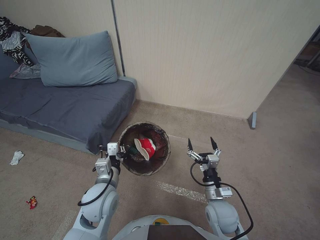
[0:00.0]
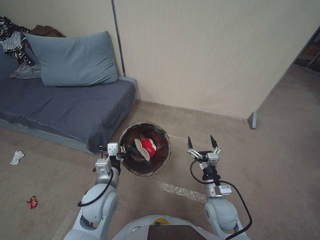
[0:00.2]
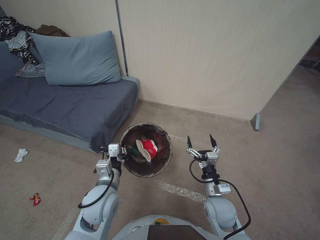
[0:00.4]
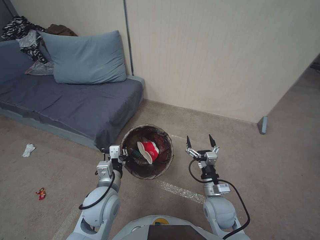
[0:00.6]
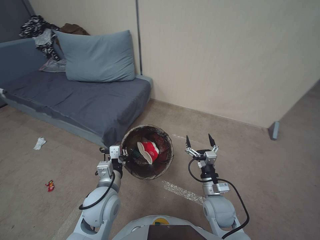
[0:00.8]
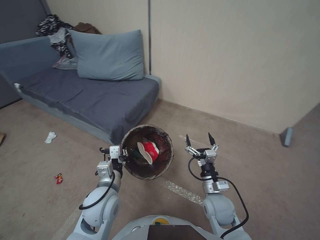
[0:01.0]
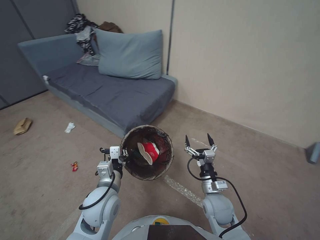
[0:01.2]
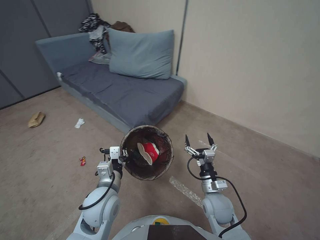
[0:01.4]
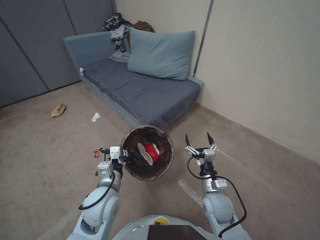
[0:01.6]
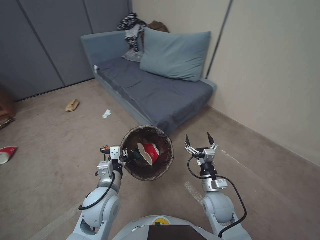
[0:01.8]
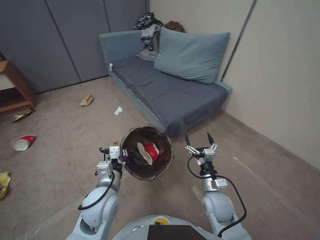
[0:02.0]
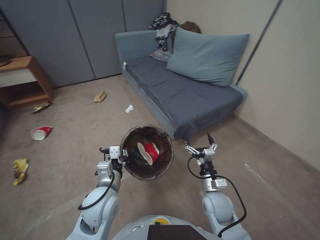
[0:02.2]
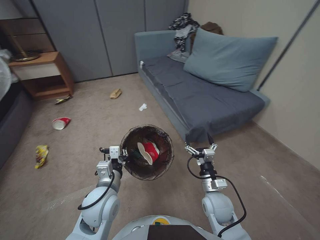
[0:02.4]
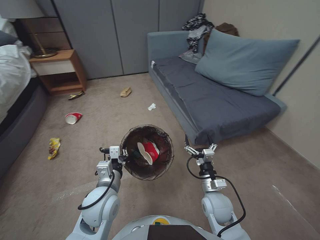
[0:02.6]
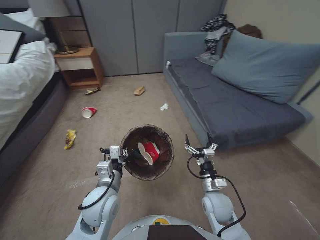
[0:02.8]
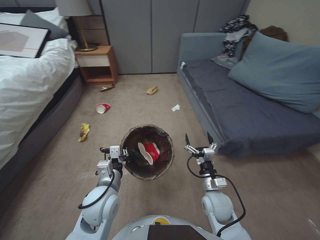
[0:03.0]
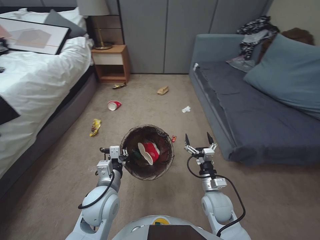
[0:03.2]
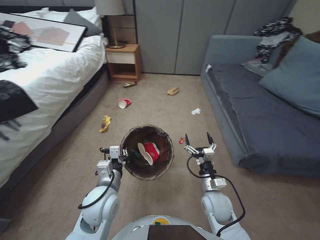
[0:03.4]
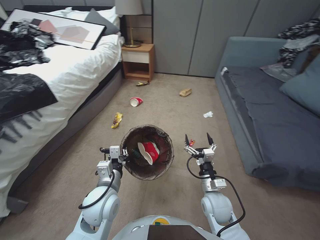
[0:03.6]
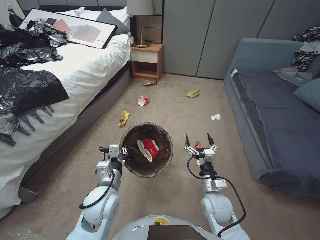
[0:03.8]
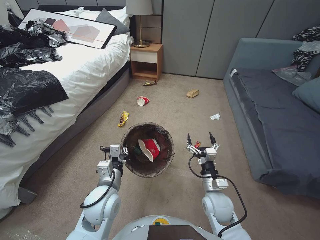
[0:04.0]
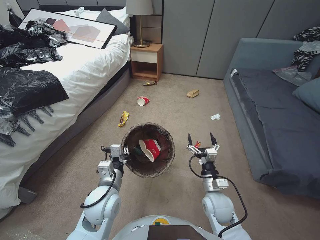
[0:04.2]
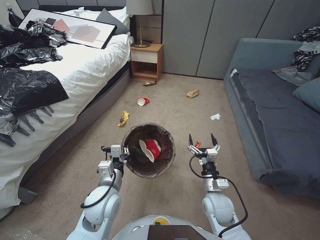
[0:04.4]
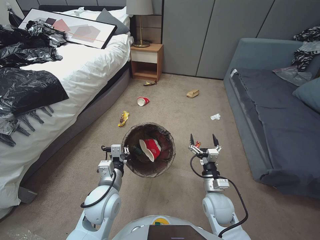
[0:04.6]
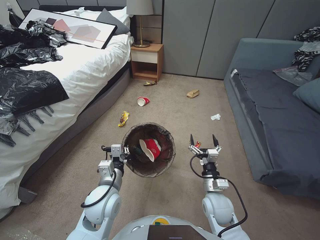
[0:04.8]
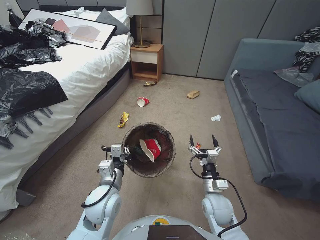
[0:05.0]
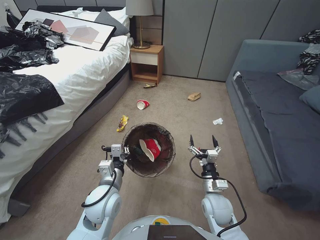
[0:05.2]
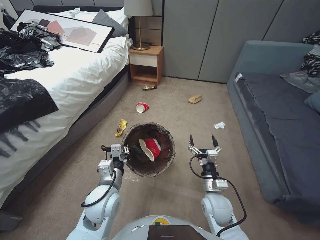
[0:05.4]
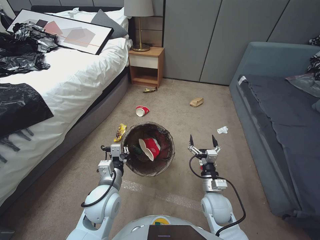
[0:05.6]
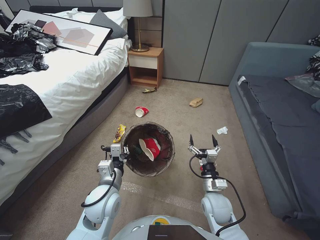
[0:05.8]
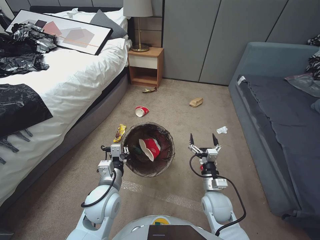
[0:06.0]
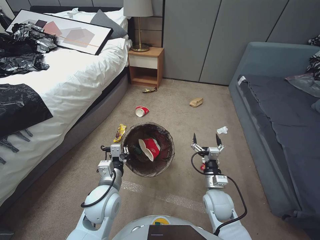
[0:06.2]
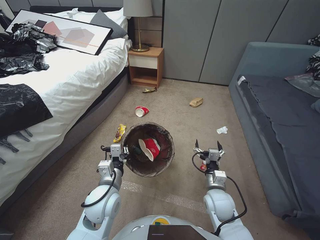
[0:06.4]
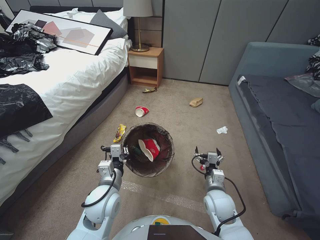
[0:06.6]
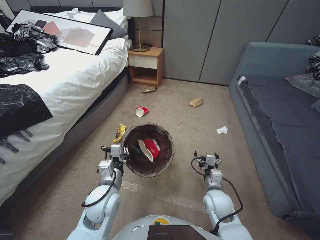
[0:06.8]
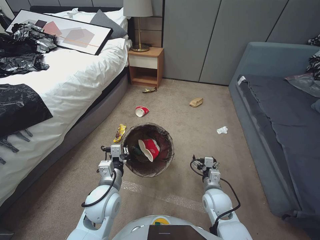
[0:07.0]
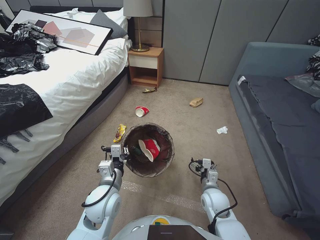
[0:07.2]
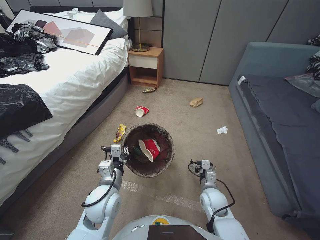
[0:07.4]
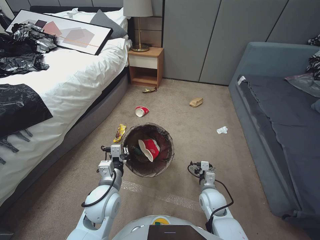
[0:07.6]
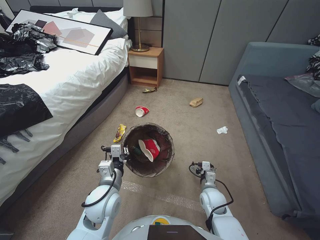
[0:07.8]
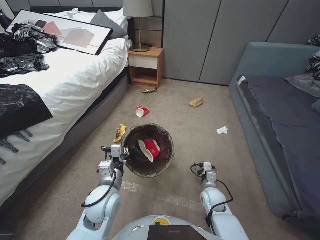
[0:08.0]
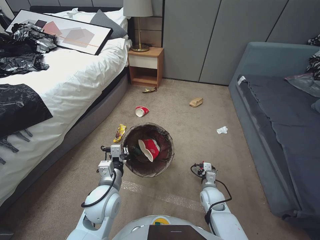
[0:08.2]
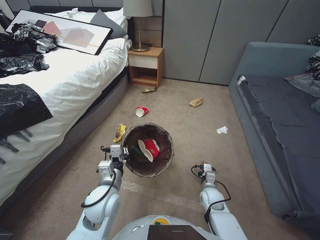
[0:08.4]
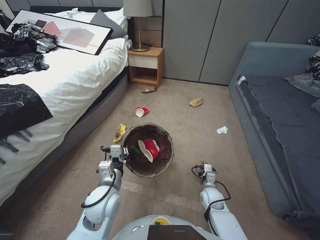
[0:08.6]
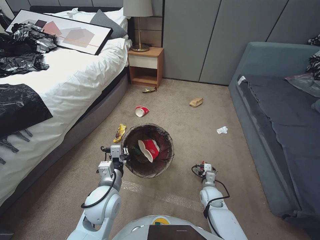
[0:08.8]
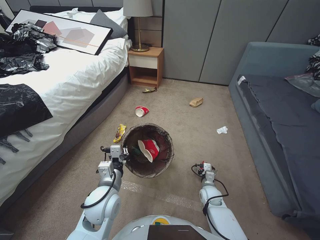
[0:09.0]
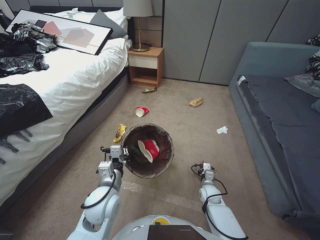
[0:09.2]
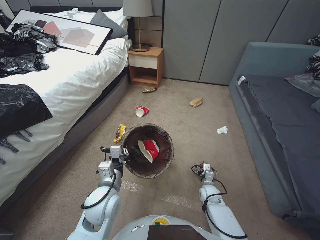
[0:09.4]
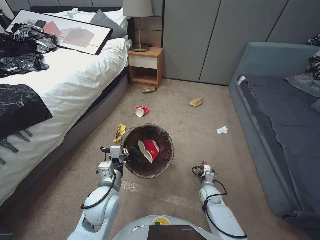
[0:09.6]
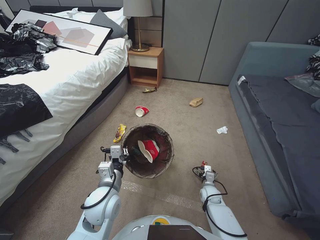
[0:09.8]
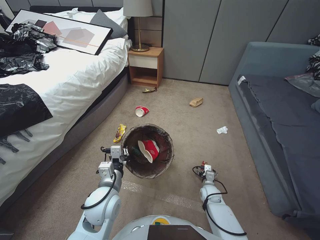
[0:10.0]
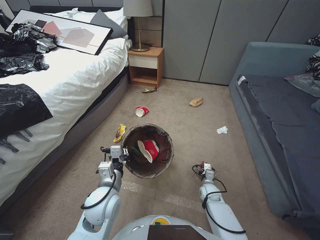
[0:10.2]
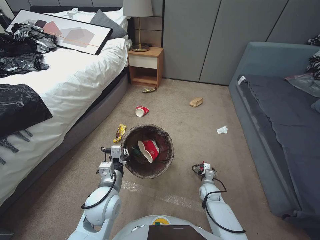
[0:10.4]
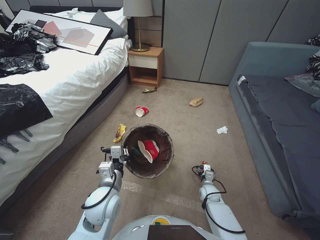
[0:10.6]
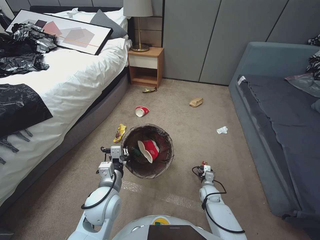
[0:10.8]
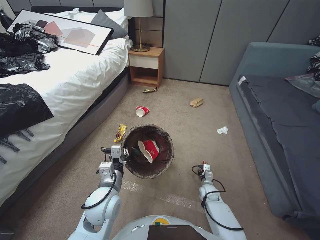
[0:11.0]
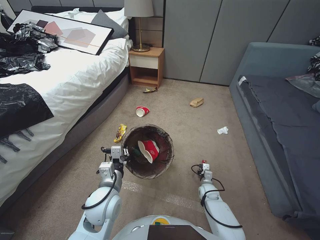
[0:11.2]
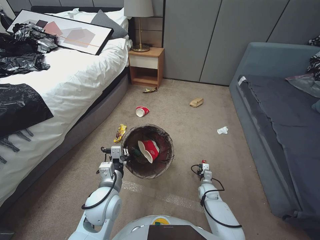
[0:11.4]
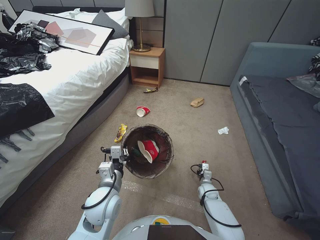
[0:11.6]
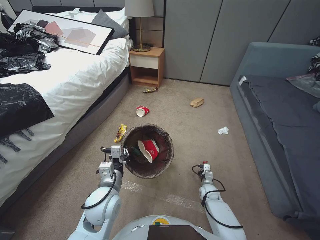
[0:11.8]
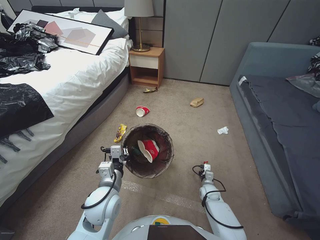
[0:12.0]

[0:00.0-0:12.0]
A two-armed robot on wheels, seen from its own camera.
Task of the whole recording: Pick up the trash bin, then pick up the garbage from the floor and place it into the trash bin.
0:06.0 to 0:07.6: The right gripper shifts by some 5 cm.
0:07.6 to 0:09.0: The right gripper is displaced downward by roughly 5 cm.
0:09.0 to 0:10.4: The right gripper goes roughly 5 cm downward.
0:10.4 to 0:12.0: The right gripper closes.

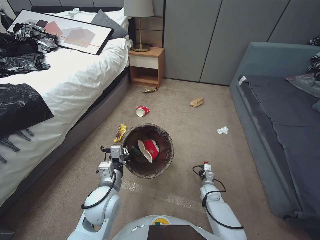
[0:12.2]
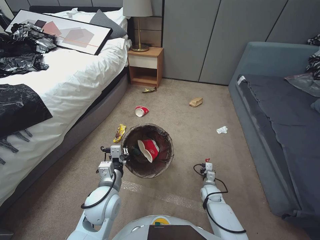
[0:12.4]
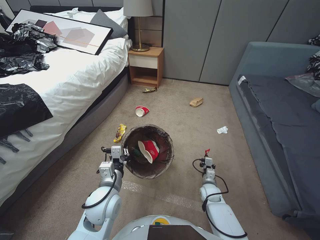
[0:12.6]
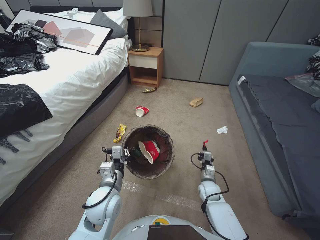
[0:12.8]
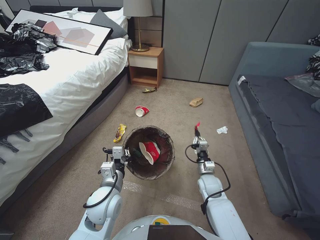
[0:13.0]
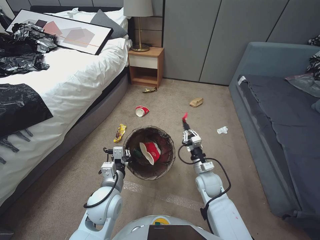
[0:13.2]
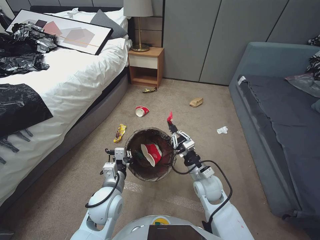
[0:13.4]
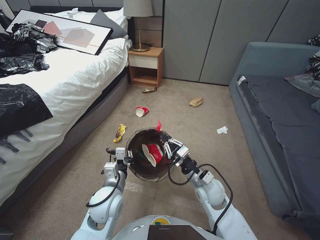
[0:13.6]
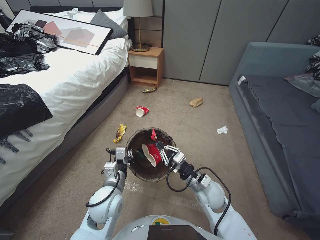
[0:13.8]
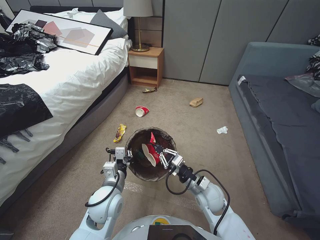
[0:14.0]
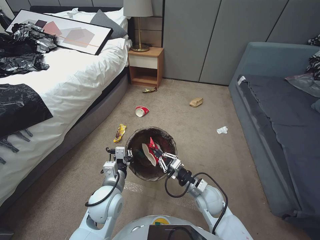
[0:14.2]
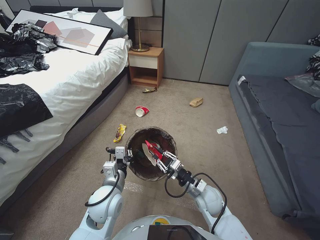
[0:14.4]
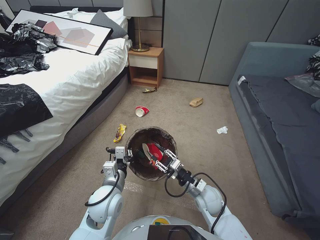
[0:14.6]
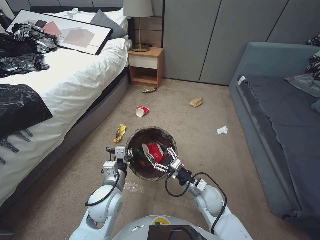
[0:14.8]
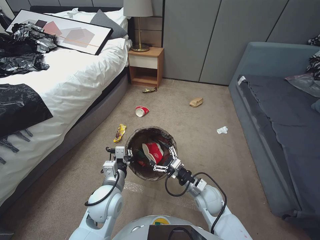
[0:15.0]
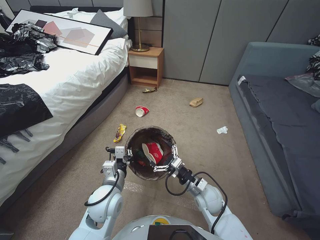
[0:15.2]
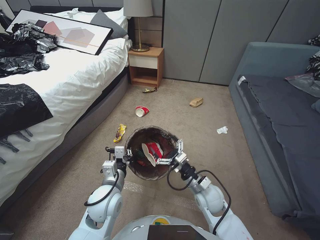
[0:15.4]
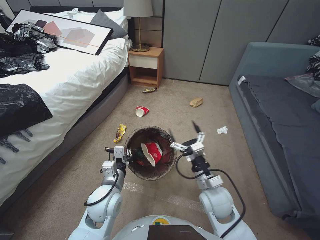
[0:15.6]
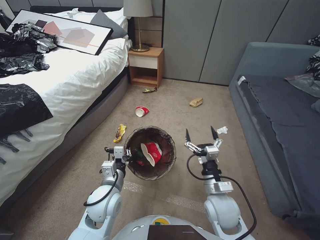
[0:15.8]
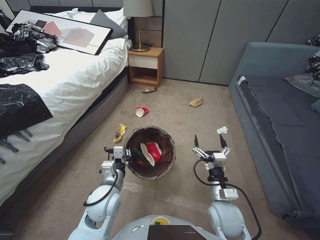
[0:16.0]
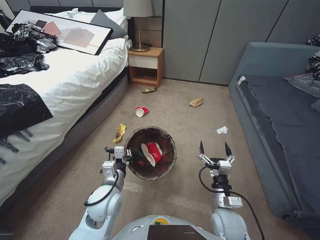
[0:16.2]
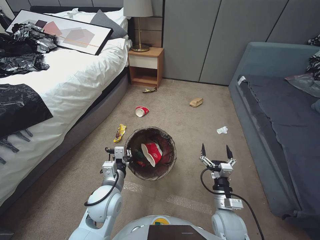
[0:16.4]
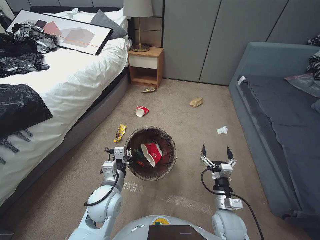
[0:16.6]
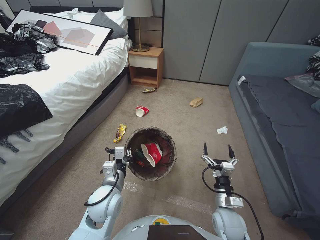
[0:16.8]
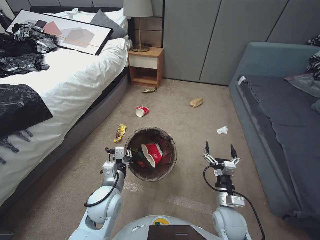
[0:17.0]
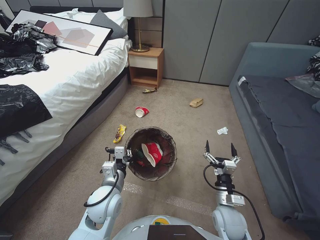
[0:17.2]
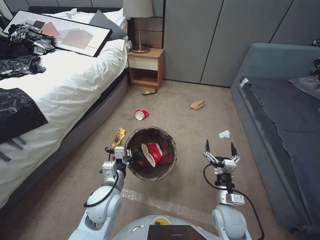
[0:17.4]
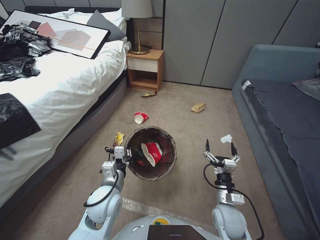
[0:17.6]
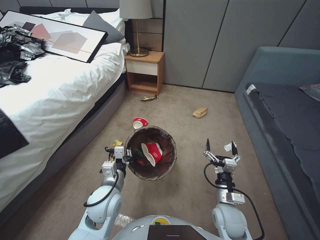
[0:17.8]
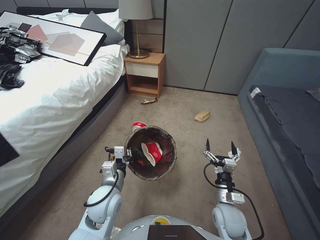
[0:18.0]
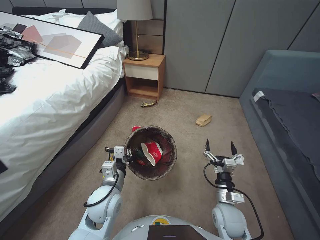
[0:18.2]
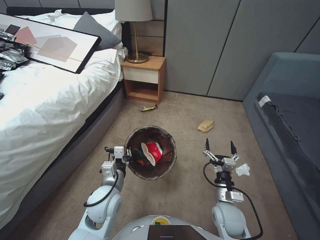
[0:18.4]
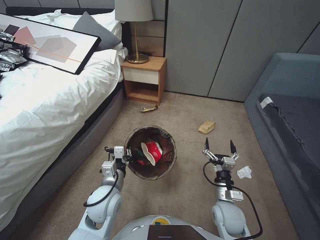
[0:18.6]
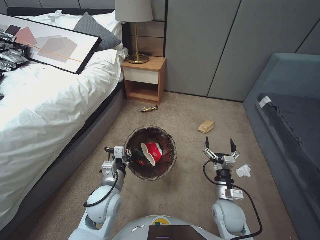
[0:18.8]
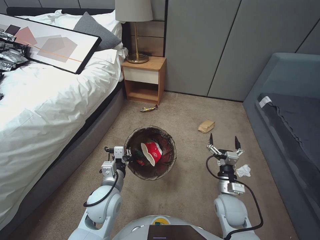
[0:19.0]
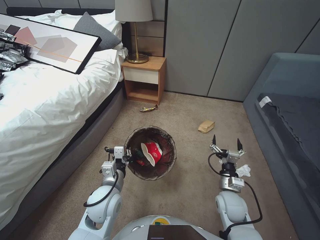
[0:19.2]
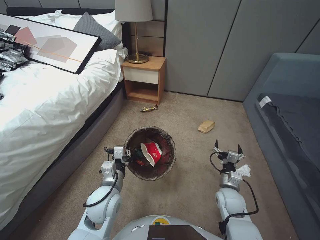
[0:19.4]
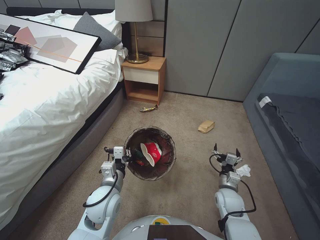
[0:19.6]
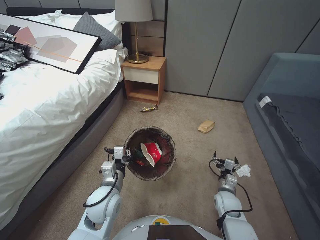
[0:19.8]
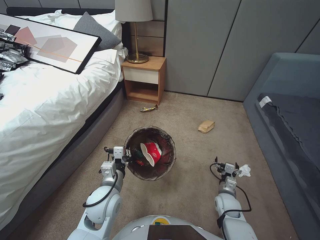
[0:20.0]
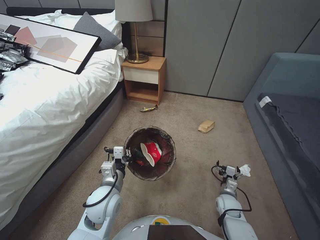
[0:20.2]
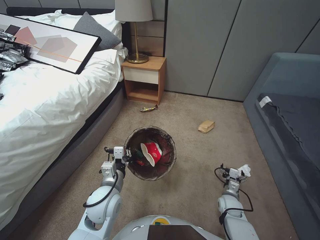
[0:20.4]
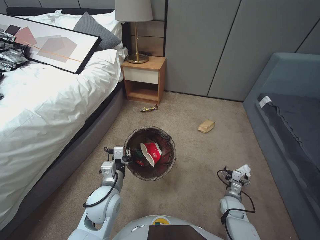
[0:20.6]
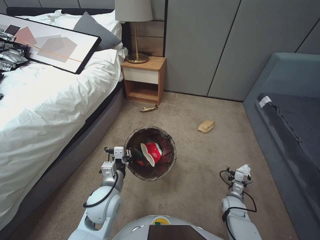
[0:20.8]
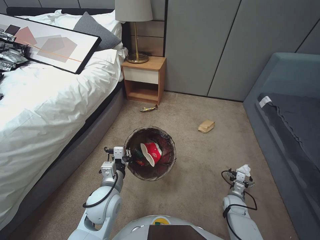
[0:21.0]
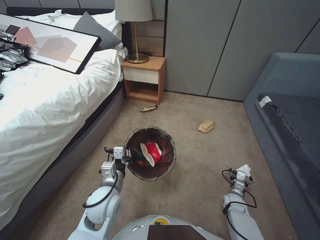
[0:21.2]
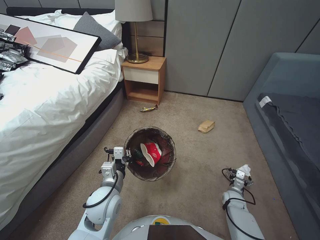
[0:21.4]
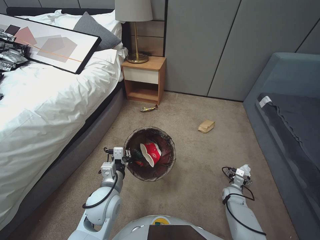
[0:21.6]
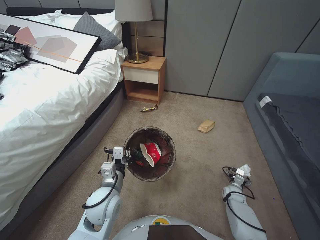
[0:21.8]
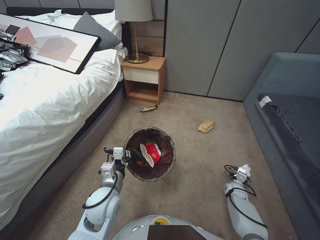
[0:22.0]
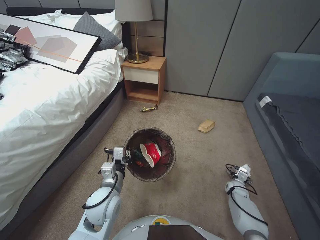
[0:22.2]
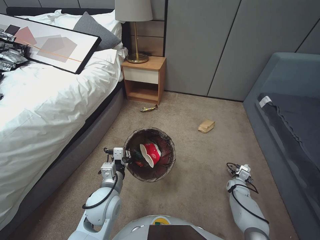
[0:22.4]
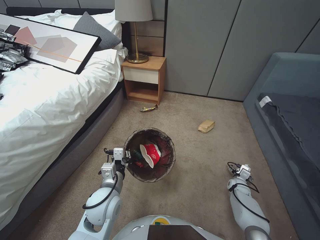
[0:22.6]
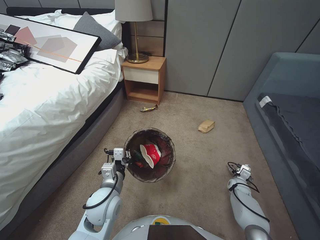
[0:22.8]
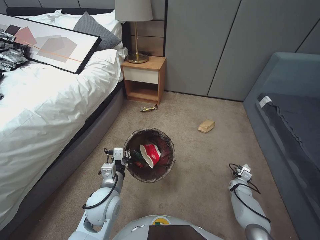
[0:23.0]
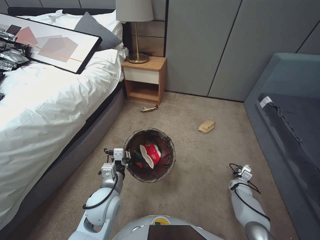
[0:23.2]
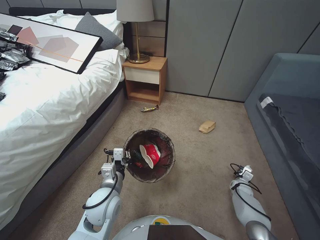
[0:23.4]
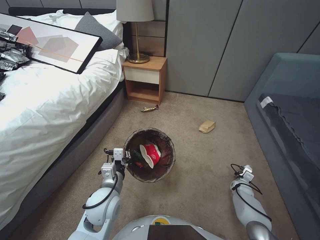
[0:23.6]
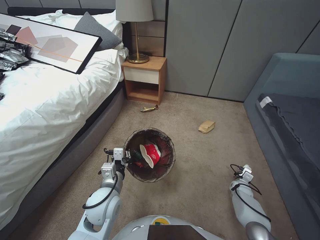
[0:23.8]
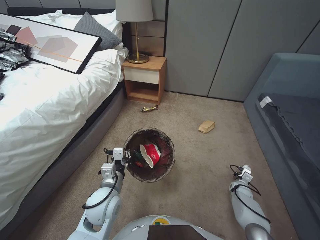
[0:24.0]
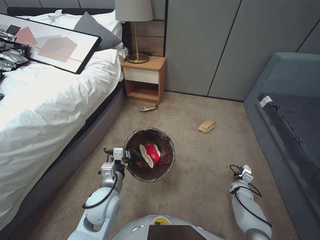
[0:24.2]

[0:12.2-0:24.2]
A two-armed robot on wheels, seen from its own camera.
Task of the whole recording: Pick up the trash bin, then pick up the garbage from the floor and place it into the trash bin.
0:12.2 to 0:13.8: The right gripper shifts roughly 25 cm upward and to the left.
0:13.8 to 0:15.2: The right gripper opens its fingers.
0:15.2 to 0:16.6: The right gripper goes about 10 cm backward, and reaches about 5 cm upward, then returns.
0:18.2 to 0:19.8: The right gripper moves downward and forward, some 10 cm.
0:19.8 to 0:21.2: The right gripper moves downward and to the right, some 15 cm.
0:21.2 to 0:22.6: The right gripper shifts some 10 cm forward and to the right.
0:22.6 to 0:24.2: The right gripper closes up.
